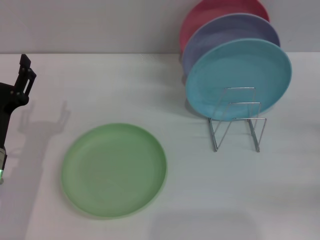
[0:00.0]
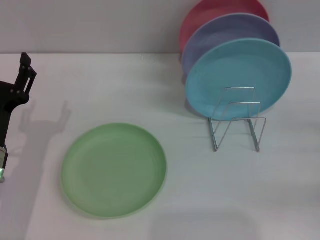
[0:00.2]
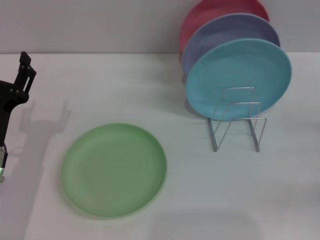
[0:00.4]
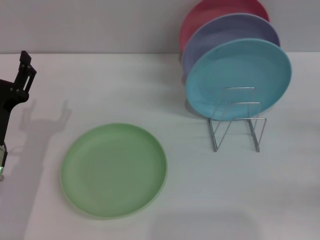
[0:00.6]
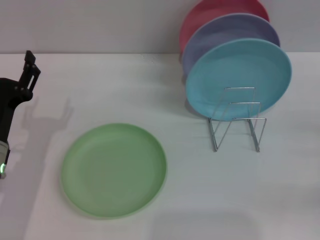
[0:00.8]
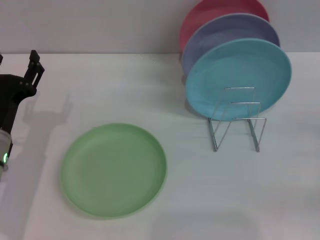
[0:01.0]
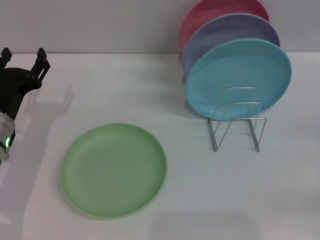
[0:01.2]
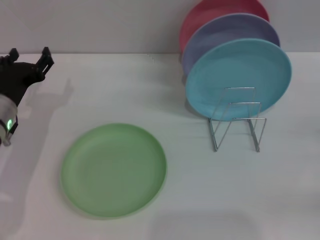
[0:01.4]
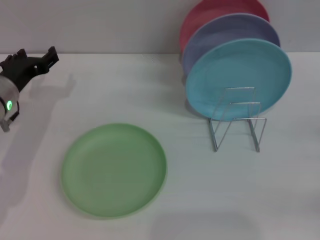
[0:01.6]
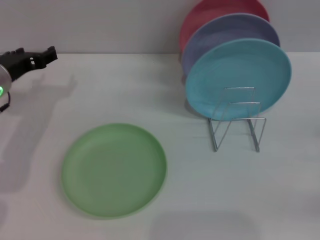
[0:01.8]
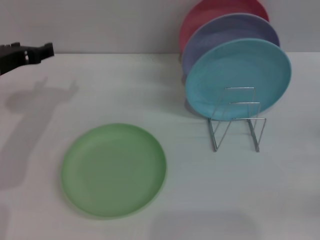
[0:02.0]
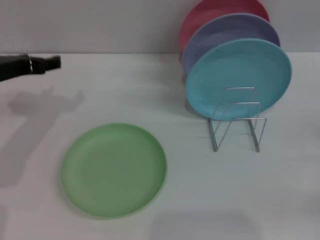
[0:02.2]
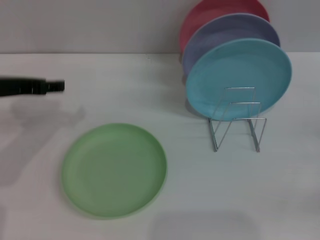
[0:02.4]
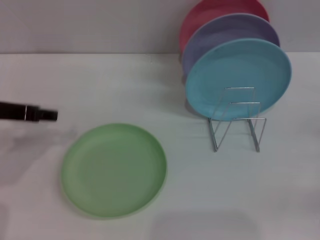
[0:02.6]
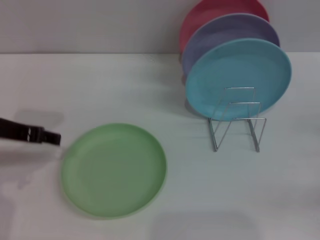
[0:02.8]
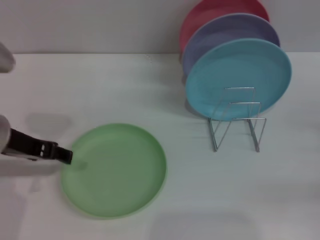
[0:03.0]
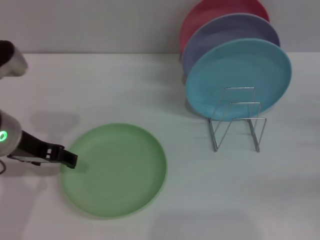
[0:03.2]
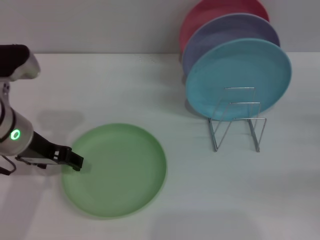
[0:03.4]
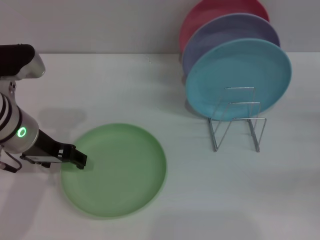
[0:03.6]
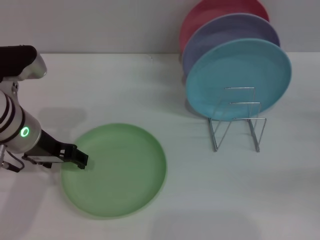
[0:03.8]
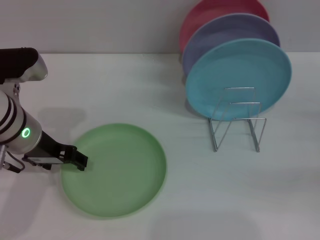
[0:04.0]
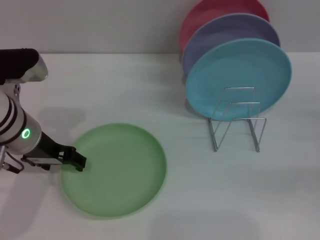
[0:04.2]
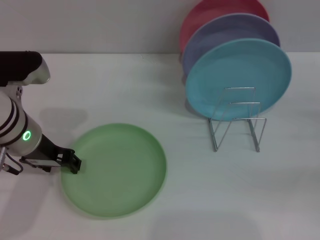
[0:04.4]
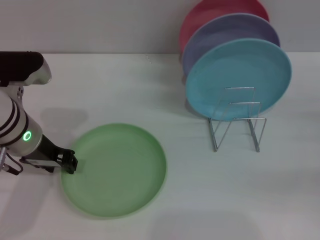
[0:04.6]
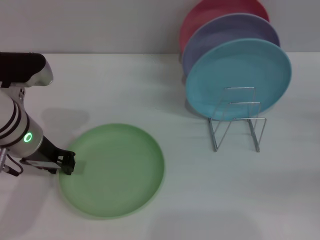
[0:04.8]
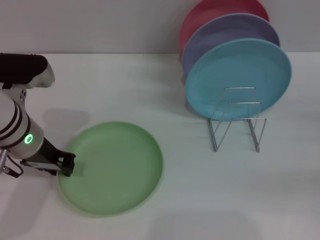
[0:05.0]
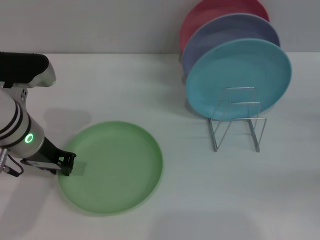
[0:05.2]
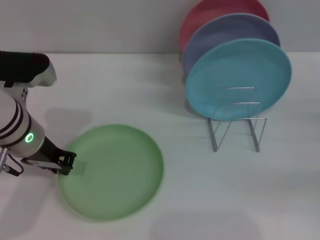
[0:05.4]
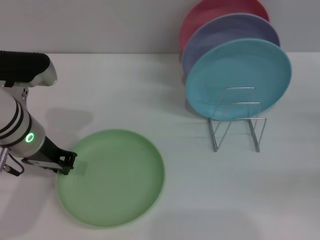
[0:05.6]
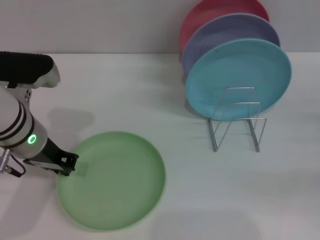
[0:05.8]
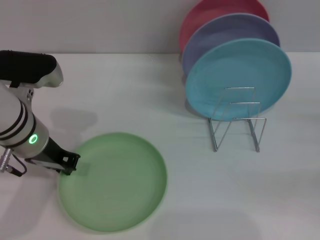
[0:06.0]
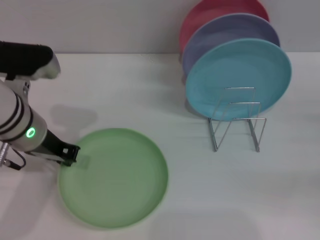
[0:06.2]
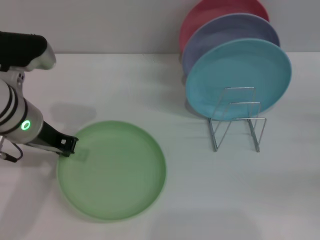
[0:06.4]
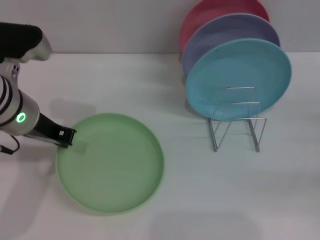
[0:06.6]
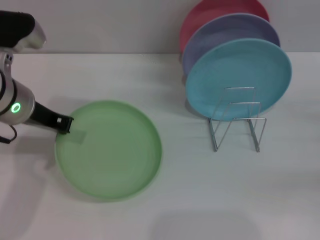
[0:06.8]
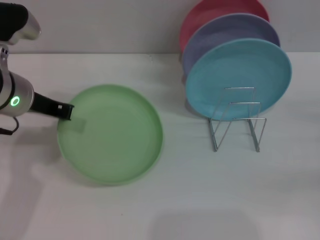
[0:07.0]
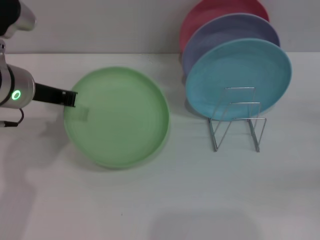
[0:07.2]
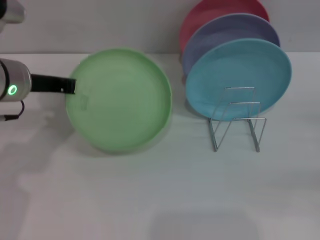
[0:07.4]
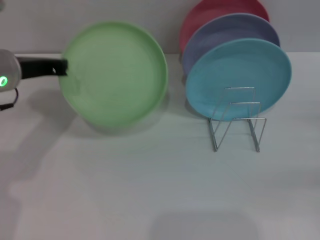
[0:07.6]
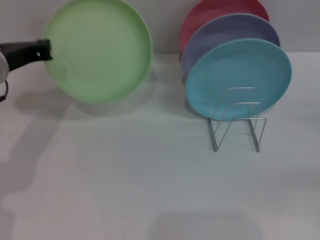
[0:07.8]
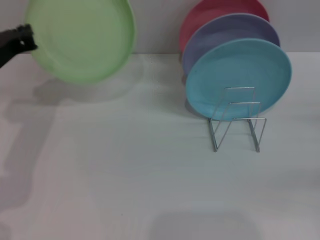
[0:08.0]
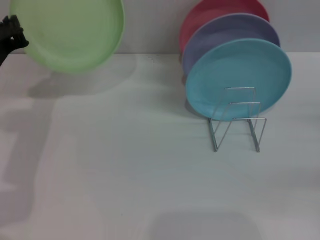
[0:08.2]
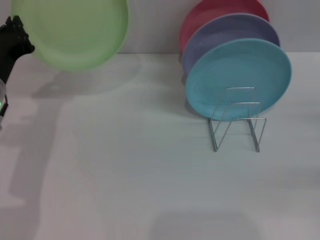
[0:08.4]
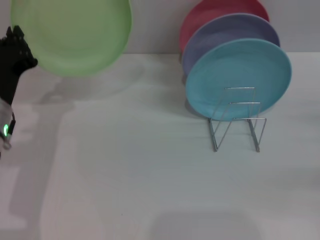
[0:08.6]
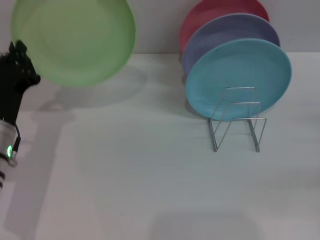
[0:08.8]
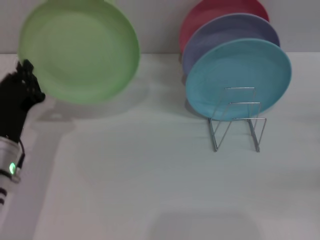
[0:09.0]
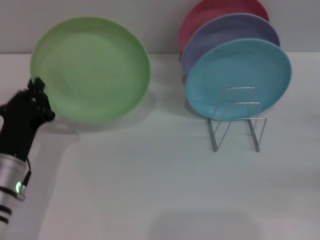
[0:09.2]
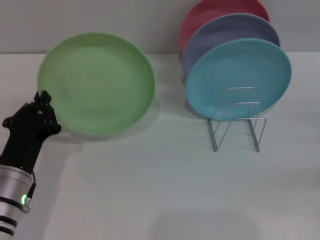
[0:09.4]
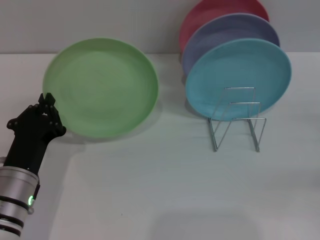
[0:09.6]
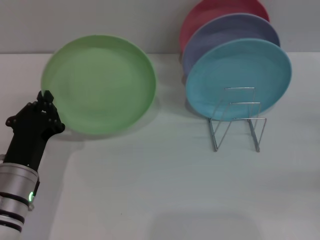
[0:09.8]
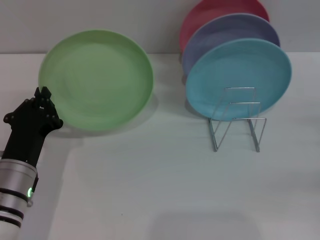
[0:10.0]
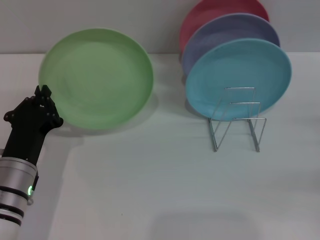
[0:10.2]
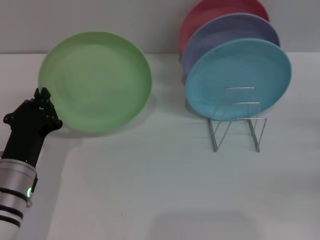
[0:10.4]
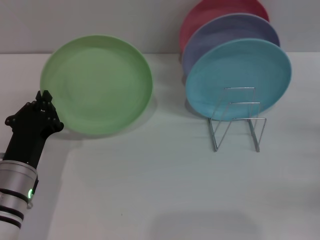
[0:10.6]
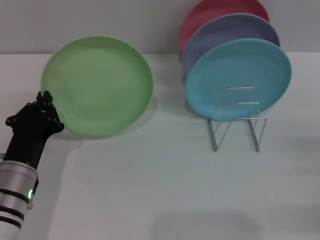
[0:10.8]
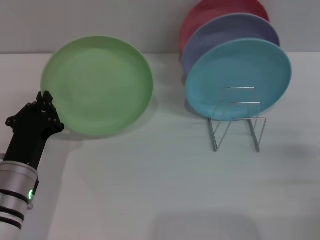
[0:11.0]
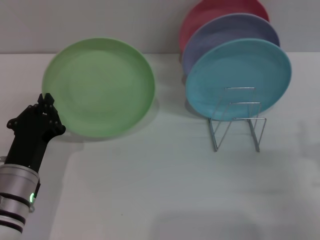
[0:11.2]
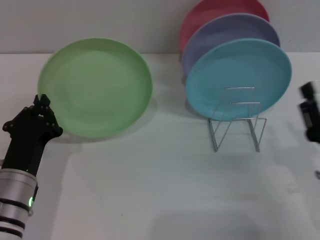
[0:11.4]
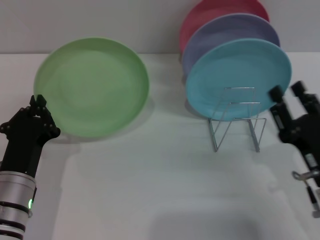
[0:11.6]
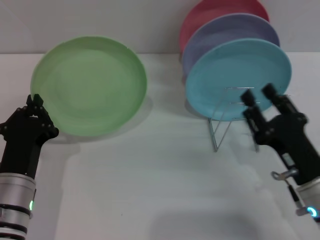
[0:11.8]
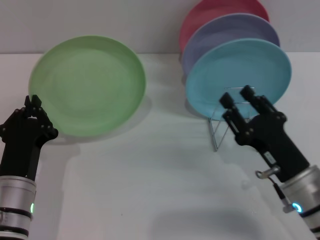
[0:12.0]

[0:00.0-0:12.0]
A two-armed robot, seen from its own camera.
Task of the whole recording: Grip the plate with one hand, pass it to the other, then set it on the shelf.
Step, 0:00.0 to 0:07.0: Pick up the plate with the left gripper.
0:00.0 to 0:01.6: The left gripper travels forward by some 10 cm.
0:01.6 to 0:03.0: The left gripper shifts some 10 cm upward and backward.
0:03.0 to 0:04.4: The left gripper changes place by some 5 cm.
0:04.4 to 0:06.0: The left gripper closes its fingers.
0:06.0 to 0:07.6: The left gripper moves some 5 cm.
0:07.6 to 0:09.0: The left gripper goes approximately 15 cm downward and backward.
0:09.0 to 0:10.4: There are only small adjustments of the grippers.
0:10.4 to 0:12.0: The right gripper goes some 20 cm to the left.

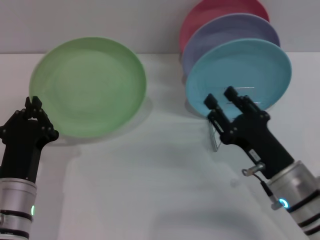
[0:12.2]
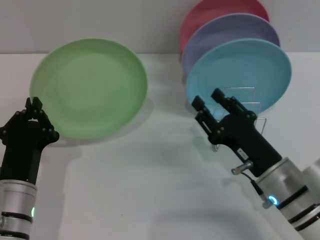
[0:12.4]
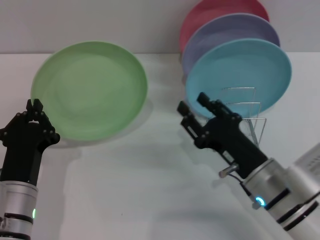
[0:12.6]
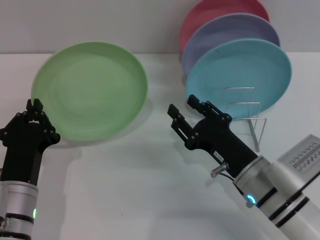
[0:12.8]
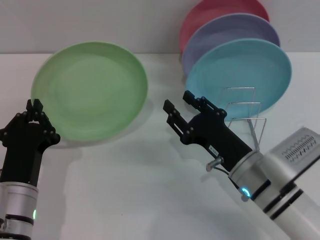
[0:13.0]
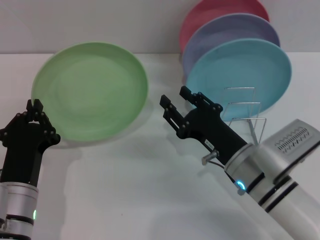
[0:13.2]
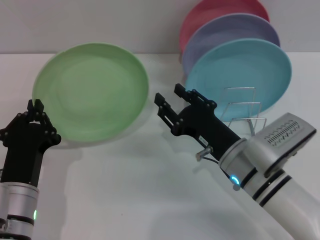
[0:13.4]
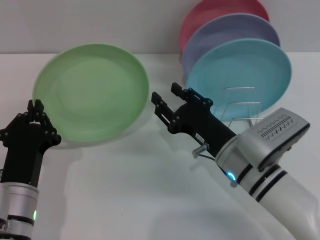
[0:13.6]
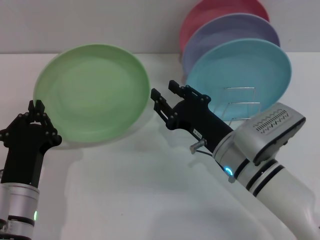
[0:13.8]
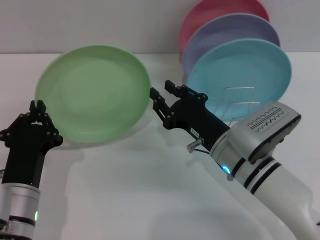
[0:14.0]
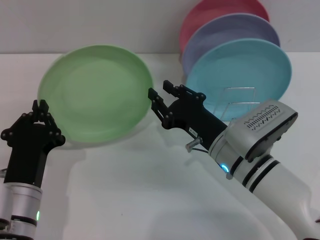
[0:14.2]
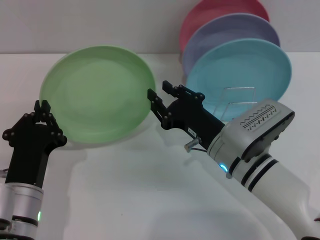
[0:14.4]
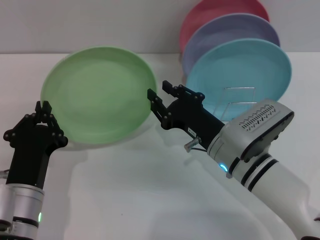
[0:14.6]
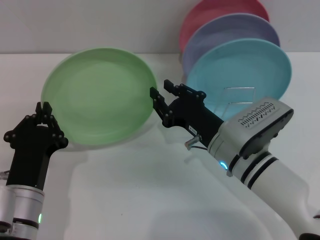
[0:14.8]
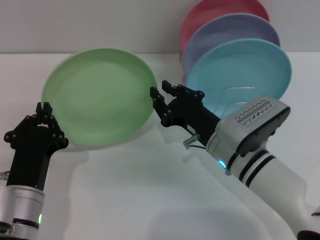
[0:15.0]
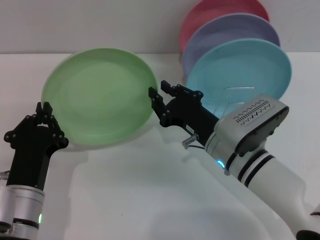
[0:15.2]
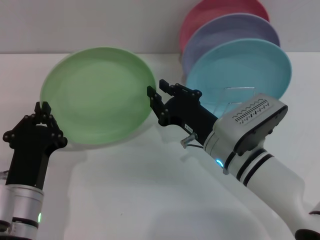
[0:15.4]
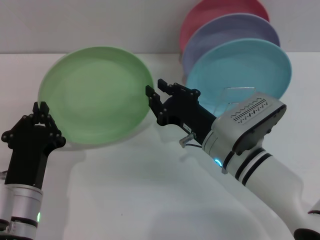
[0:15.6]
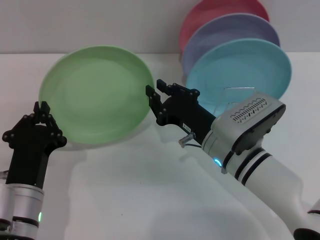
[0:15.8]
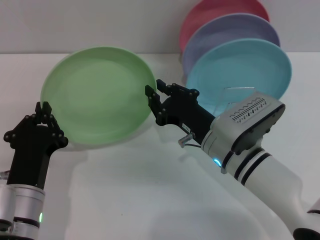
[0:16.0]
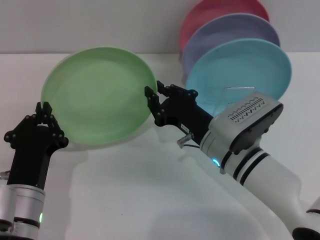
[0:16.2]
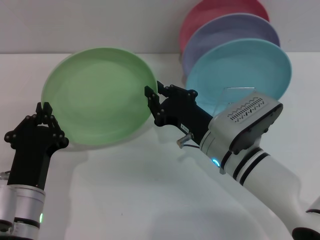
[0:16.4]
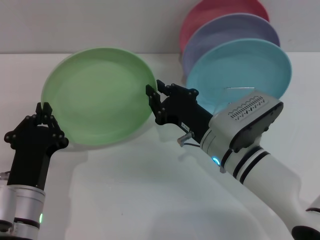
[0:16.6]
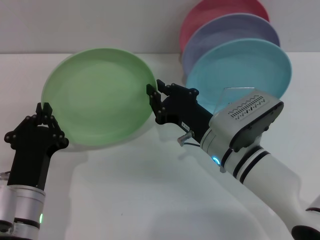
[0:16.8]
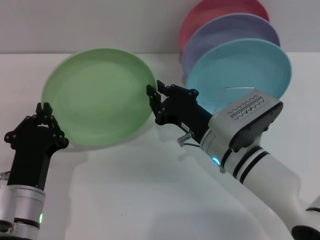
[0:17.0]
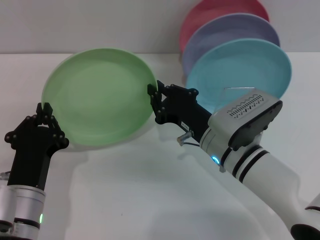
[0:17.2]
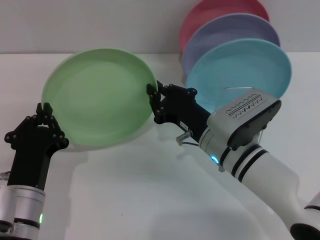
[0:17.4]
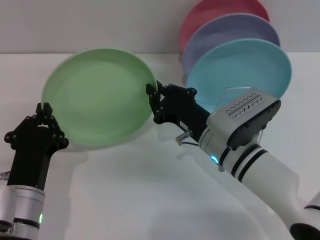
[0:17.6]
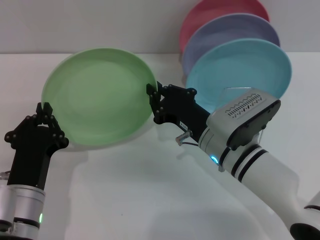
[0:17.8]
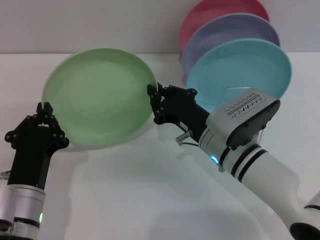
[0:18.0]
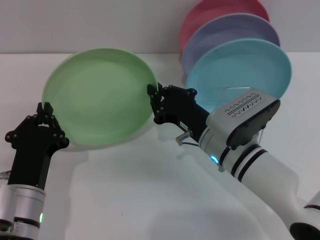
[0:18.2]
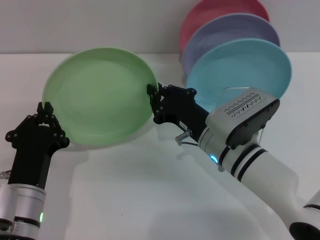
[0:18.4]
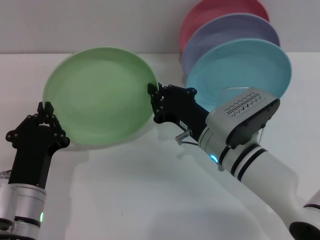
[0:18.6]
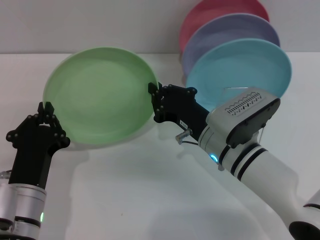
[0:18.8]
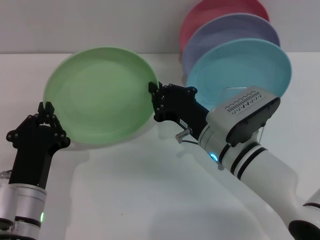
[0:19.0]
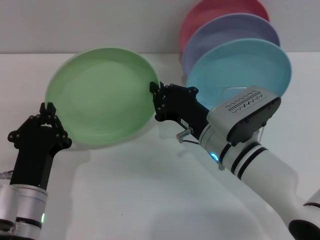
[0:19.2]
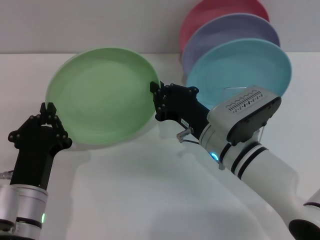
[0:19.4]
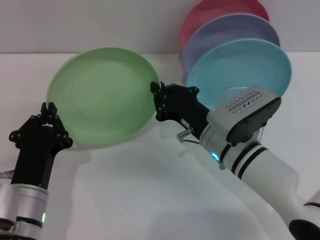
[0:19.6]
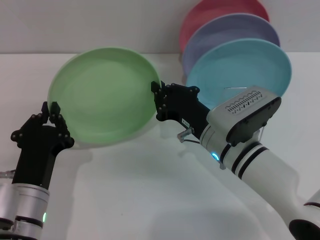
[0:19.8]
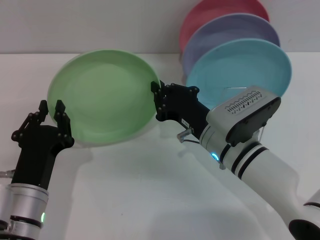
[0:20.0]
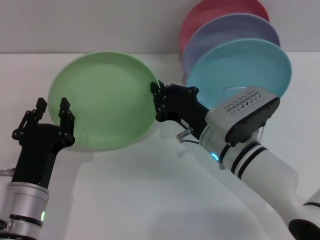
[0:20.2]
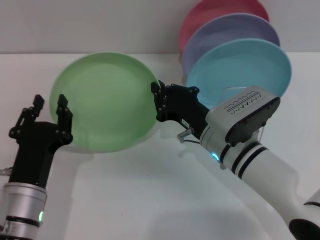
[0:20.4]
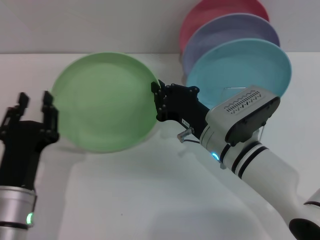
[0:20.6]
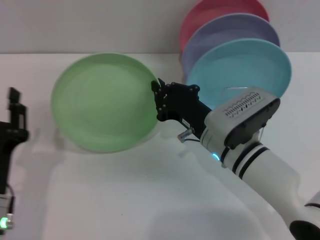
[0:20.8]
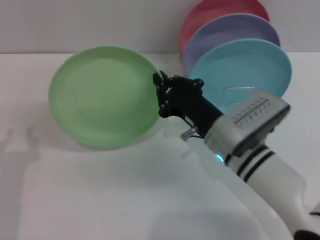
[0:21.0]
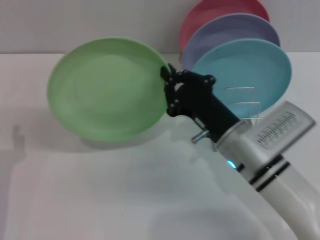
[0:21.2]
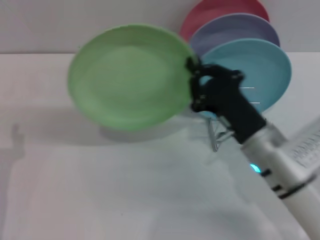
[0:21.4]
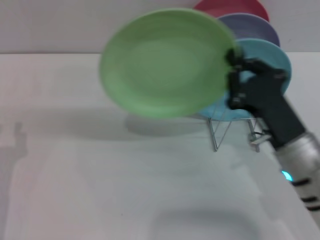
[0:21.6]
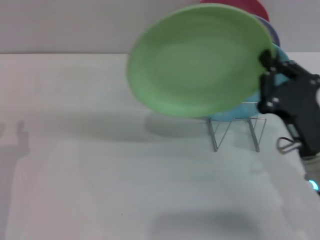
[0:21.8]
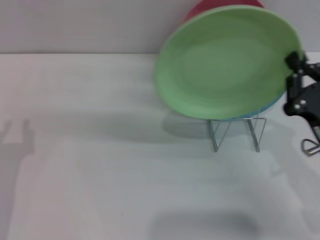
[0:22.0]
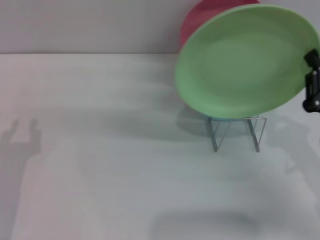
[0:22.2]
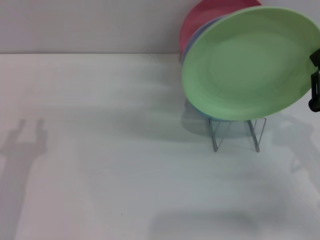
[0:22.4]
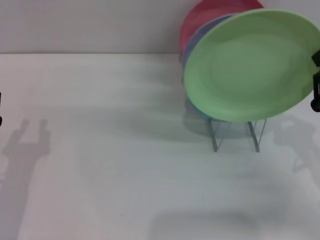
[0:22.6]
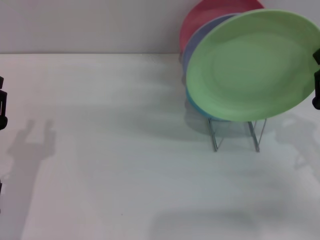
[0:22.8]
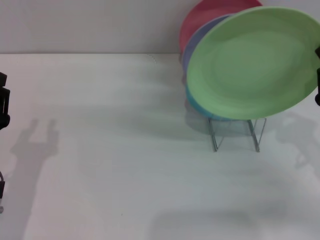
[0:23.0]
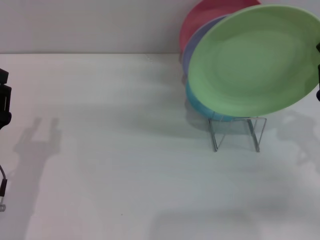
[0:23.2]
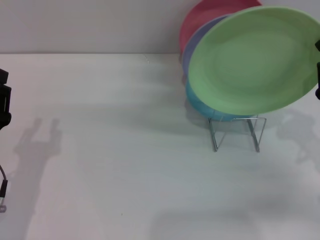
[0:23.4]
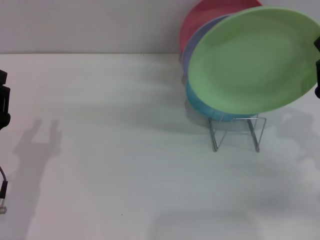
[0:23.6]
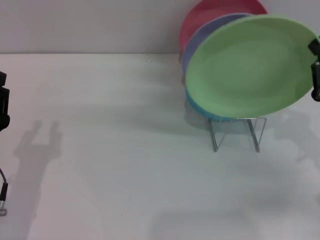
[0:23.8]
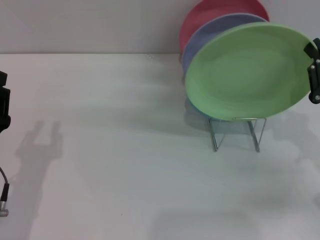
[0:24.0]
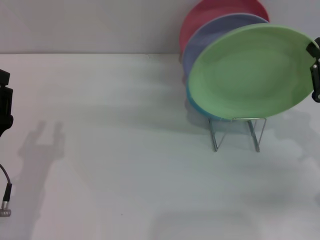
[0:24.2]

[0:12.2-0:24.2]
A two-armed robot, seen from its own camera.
Task of the whole recording: Grip the plate with one hand, pass it to the other, then set it on the shelf.
Step, 0:12.2 to 0:20.6: Pass the plate from the left gripper to the right gripper.
0:12.2 to 0:13.8: The right gripper goes about 10 cm to the left and forward.
0:13.8 to 0:15.2: The right gripper closes up.
0:15.2 to 0:19.8: Both grippers stay about where they are.
0:19.8 to 0:21.2: The left gripper is displaced to the left by approximately 10 cm, and opens up.
0:21.2 to 0:22.6: The right gripper shifts approximately 15 cm to the right.
